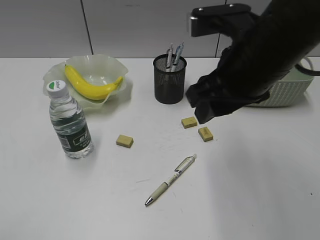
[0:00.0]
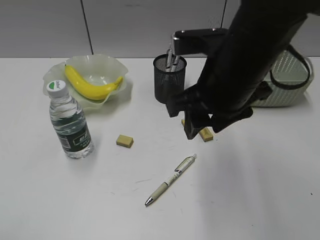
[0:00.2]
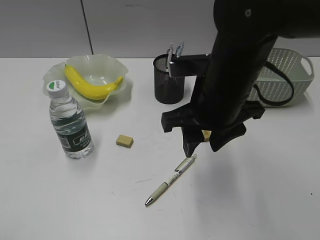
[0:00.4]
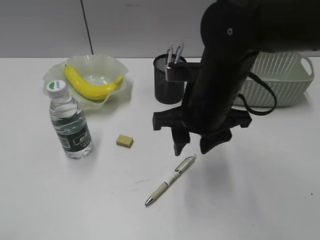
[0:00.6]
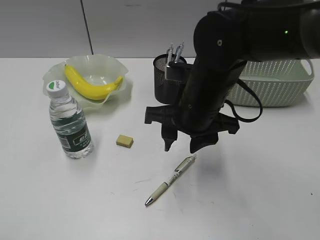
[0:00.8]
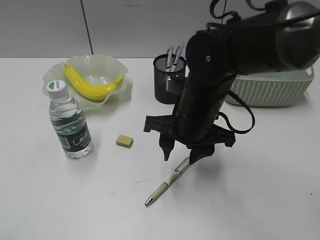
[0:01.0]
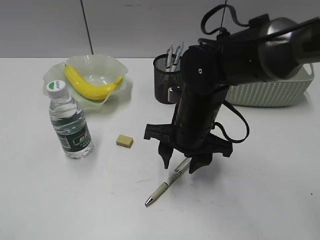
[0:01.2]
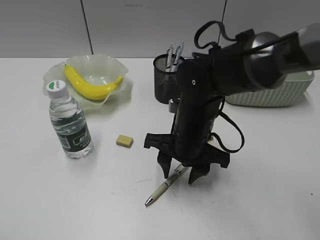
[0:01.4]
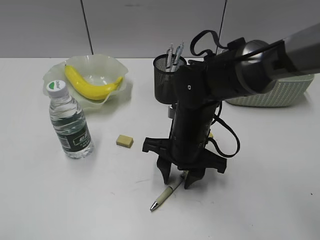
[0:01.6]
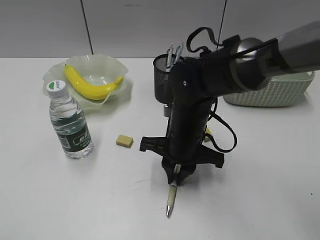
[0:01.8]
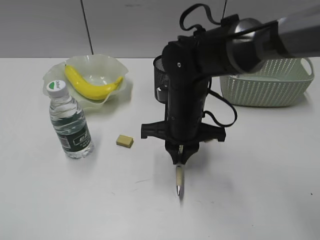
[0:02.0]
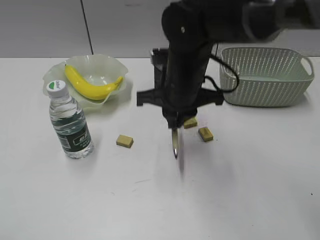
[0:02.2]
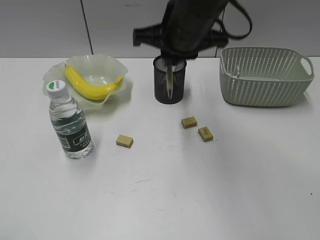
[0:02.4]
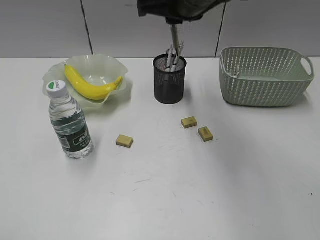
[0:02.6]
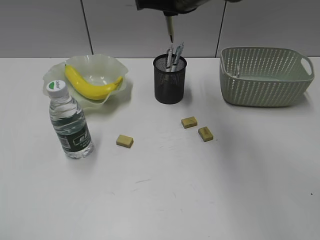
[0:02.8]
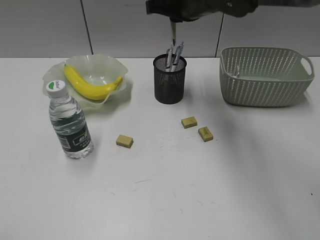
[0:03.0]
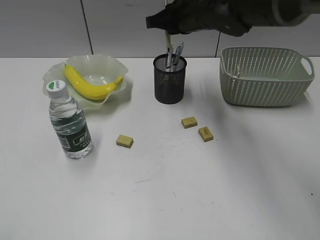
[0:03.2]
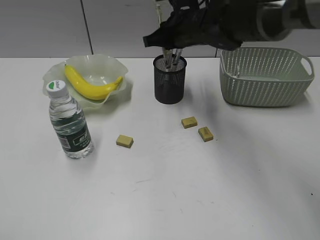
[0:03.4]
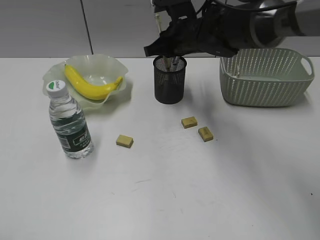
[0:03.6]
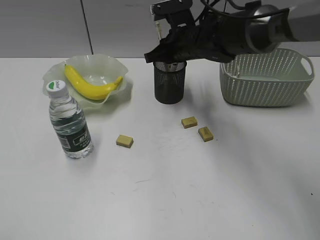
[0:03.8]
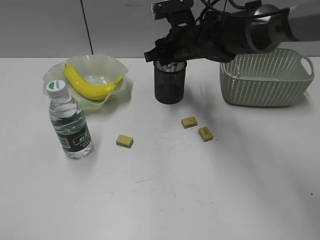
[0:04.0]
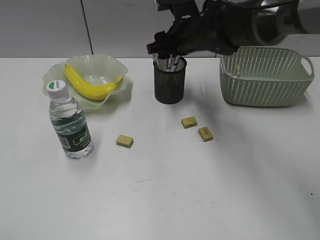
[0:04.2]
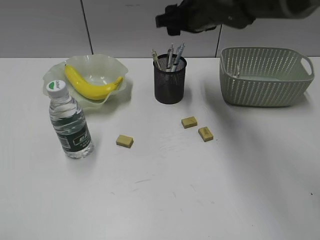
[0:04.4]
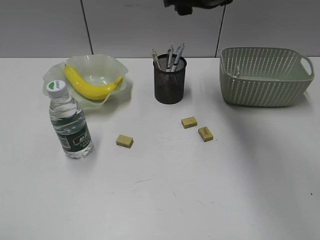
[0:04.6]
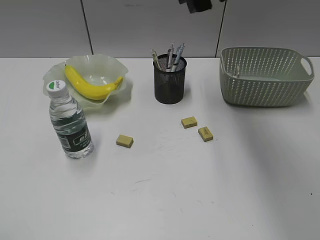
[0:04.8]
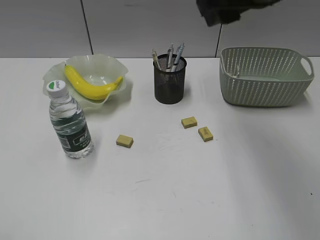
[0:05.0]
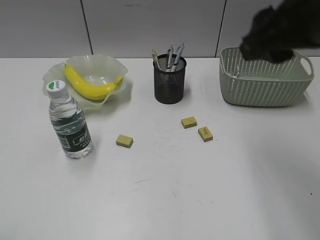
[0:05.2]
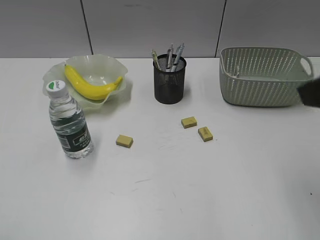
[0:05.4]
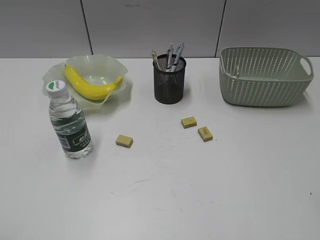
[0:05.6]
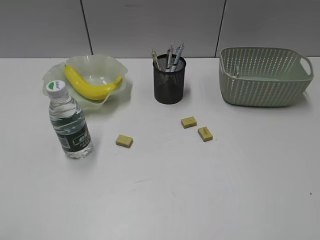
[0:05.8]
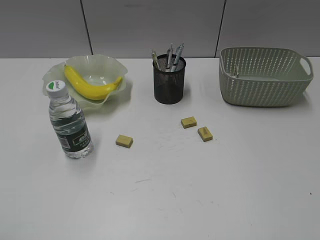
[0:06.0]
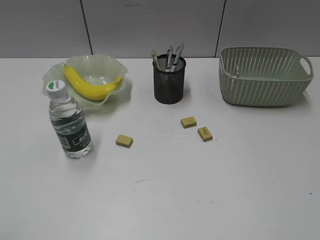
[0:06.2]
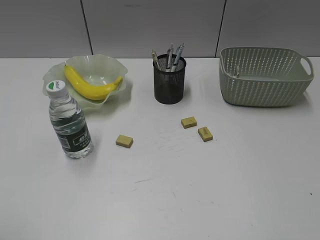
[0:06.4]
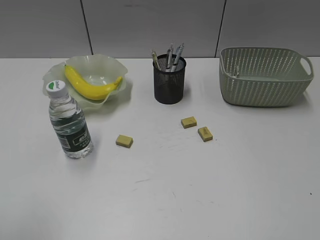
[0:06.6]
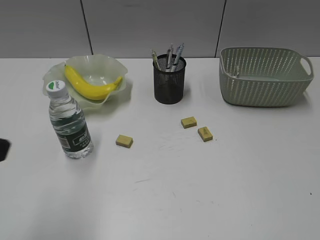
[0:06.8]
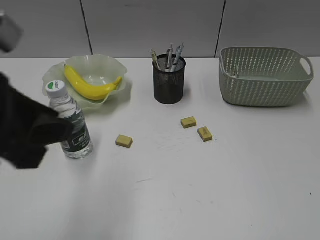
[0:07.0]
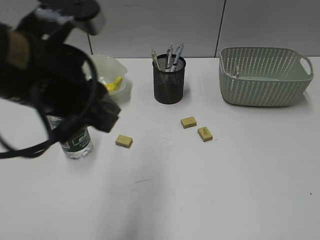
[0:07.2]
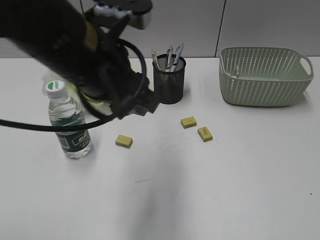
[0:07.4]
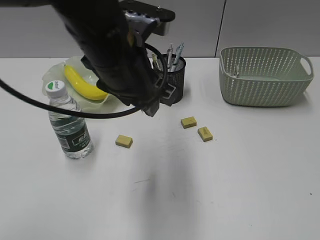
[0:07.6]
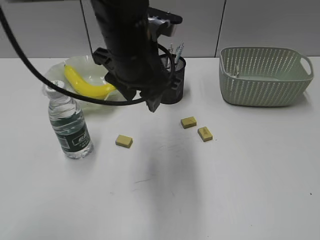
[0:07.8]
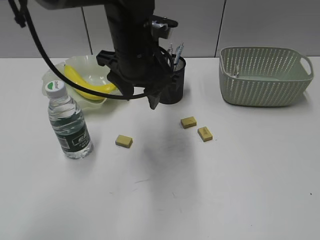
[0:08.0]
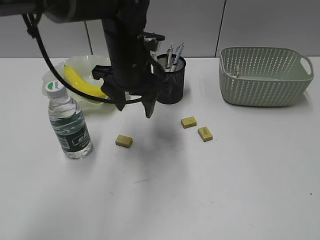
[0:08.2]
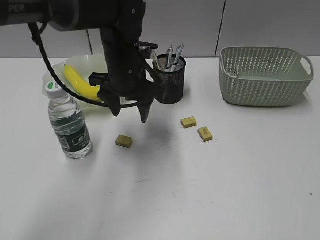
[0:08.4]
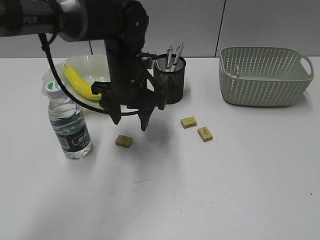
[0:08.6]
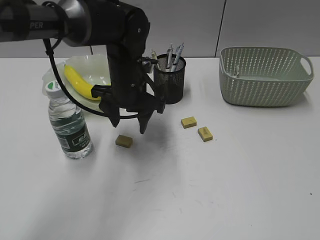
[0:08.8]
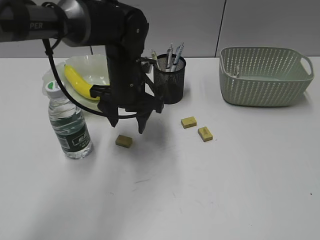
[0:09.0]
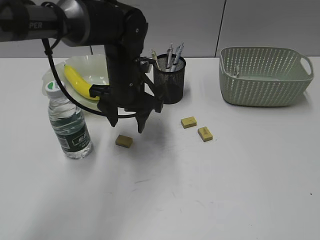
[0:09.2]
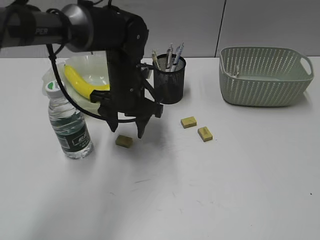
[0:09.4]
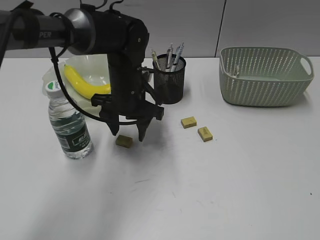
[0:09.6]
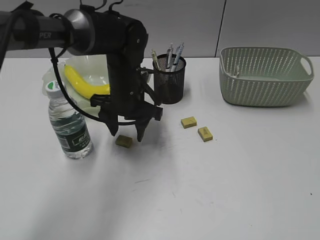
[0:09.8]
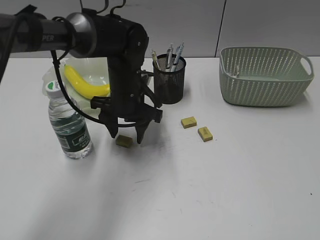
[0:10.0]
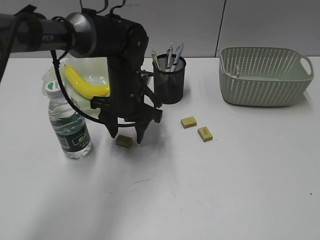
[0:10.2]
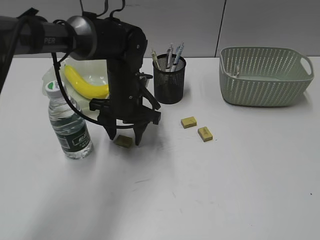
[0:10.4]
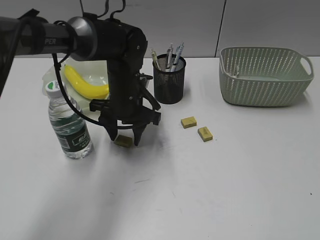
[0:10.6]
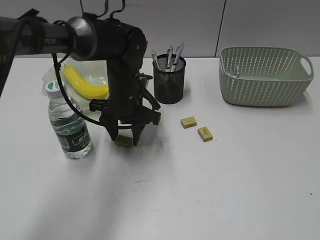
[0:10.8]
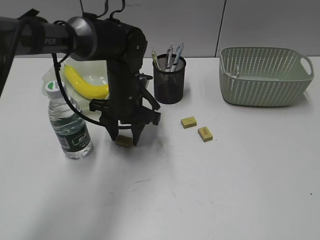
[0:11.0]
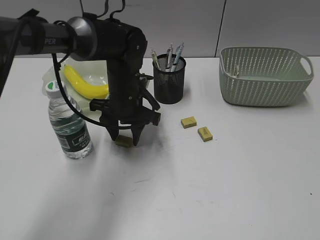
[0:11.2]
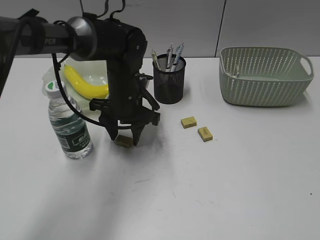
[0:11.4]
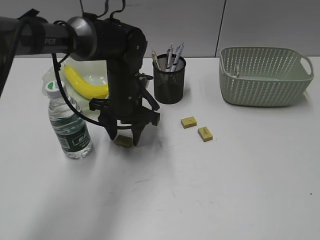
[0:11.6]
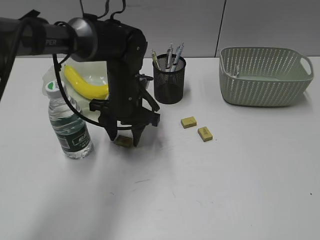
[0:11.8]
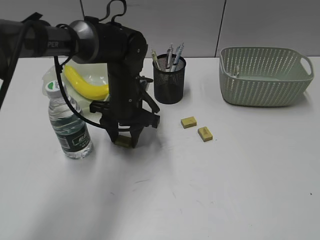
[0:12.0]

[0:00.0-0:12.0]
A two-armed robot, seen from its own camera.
Step, 0:02.0 to 0:04.2: Place the yellow pen in pen holder with right gripper.
0:00.0 to 0:01.6: The right gripper shifts some 20 cm downward.
0:01.6 to 0:03.0: The right gripper travels upward and forward by approximately 20 cm, and closes its fingers.
0:03.0 to 0:04.4: The right gripper goes downward and returns, approximately 10 cm each way, and opens up.
0:04.4 to 0:06.0: The right gripper goes approximately 50 cm backward and to the right.
0:06.0 to 0:07.6: The left gripper heads to the right and forward, covering roughly 40 cm.
0:07.6 to 0:09.0: The left gripper travels forward and downward by roughly 15 cm.
0:09.0 to 0:10.4: The grippers stay close to where they were, moving slightly.
0:10.4 to 0:12.0: Both grippers stay about where they are.

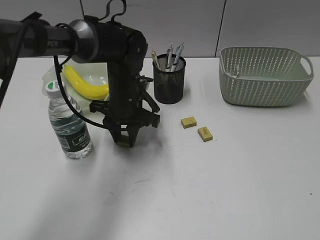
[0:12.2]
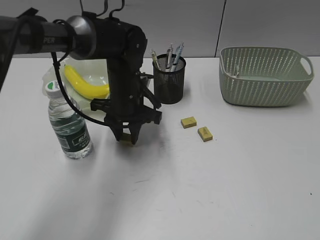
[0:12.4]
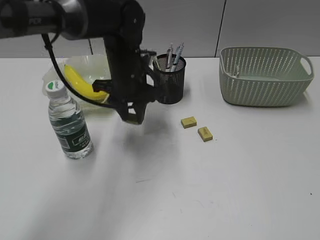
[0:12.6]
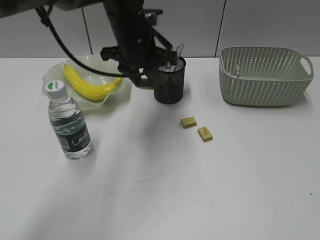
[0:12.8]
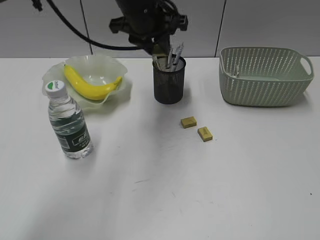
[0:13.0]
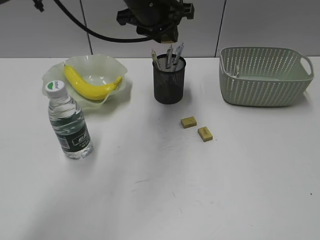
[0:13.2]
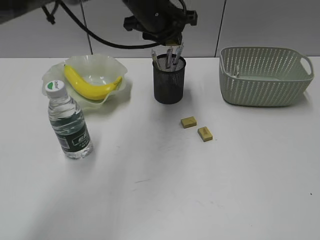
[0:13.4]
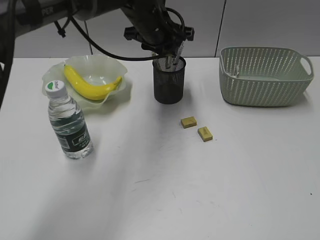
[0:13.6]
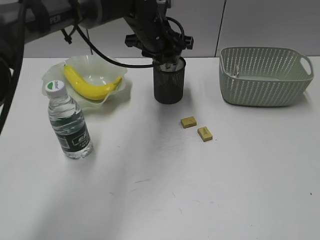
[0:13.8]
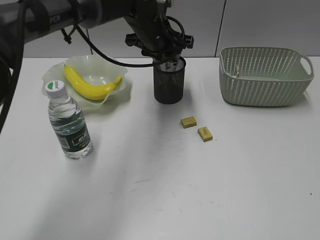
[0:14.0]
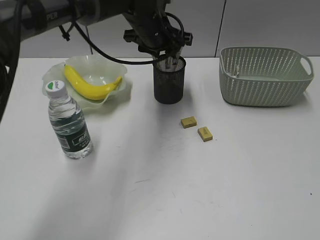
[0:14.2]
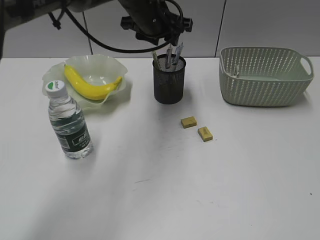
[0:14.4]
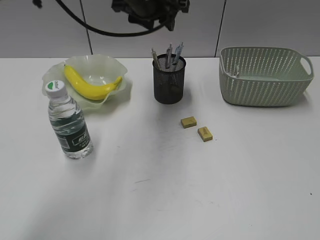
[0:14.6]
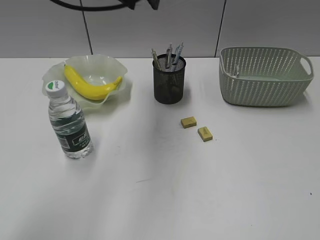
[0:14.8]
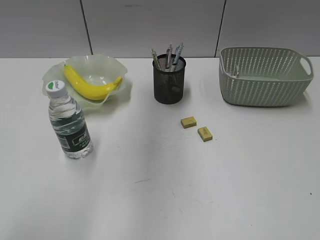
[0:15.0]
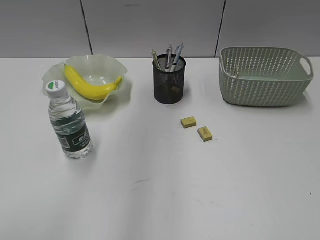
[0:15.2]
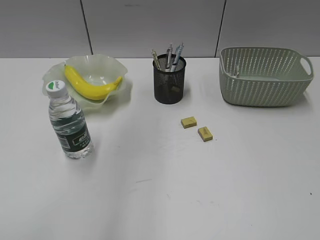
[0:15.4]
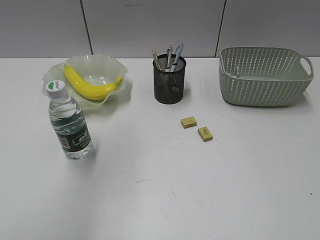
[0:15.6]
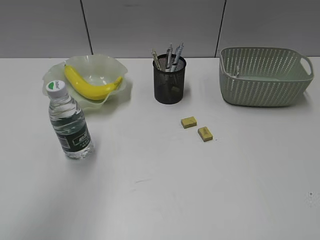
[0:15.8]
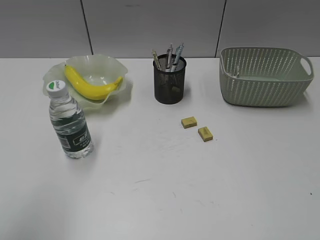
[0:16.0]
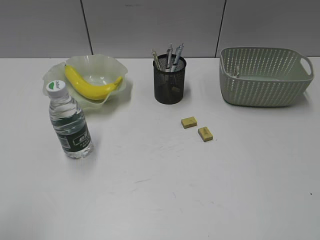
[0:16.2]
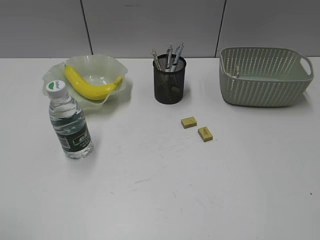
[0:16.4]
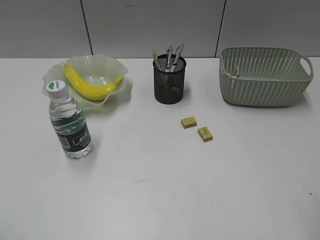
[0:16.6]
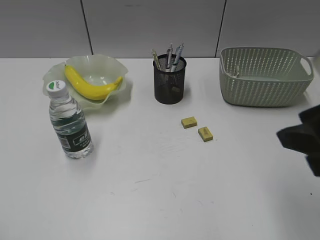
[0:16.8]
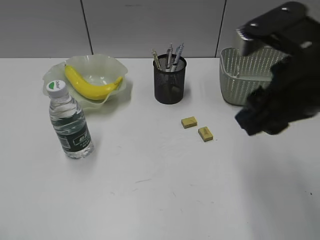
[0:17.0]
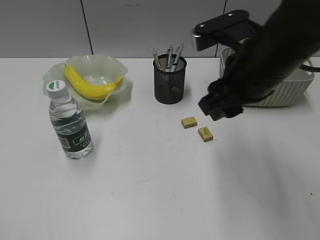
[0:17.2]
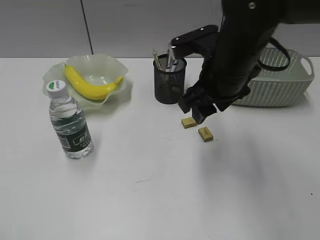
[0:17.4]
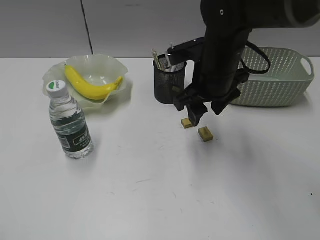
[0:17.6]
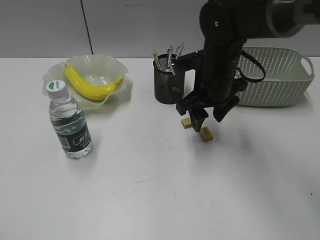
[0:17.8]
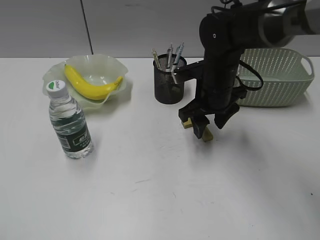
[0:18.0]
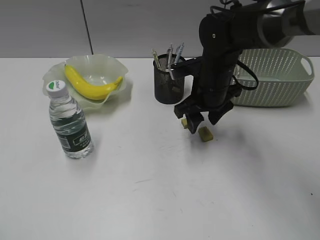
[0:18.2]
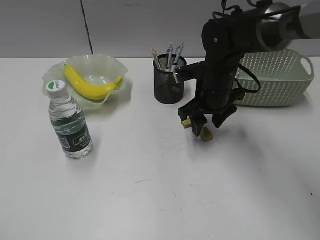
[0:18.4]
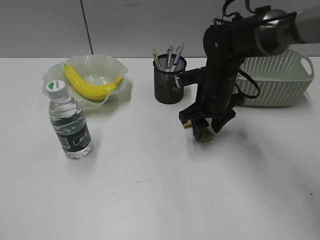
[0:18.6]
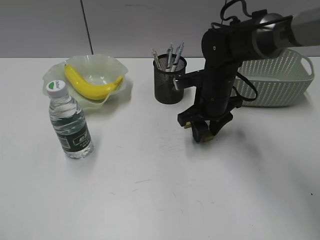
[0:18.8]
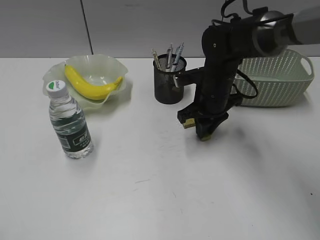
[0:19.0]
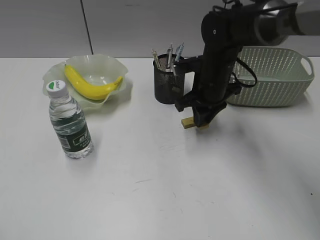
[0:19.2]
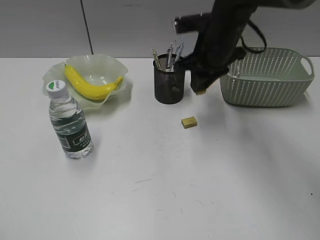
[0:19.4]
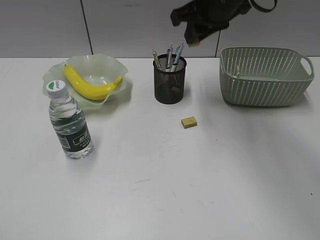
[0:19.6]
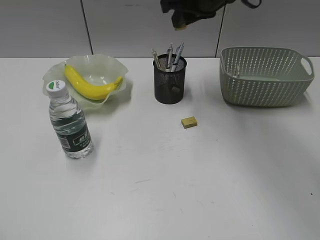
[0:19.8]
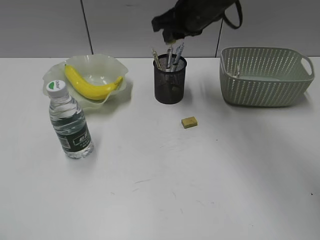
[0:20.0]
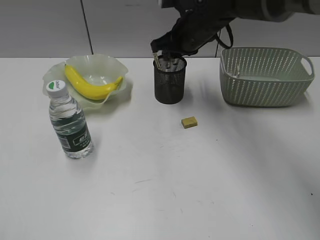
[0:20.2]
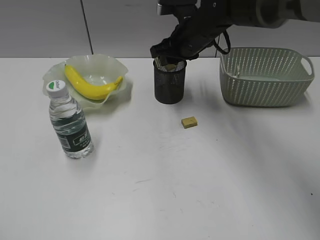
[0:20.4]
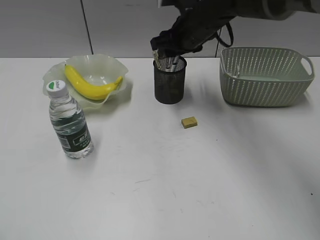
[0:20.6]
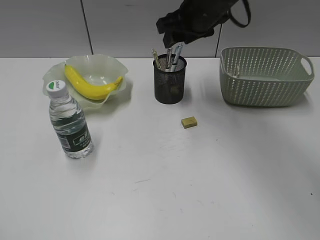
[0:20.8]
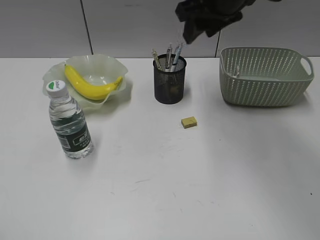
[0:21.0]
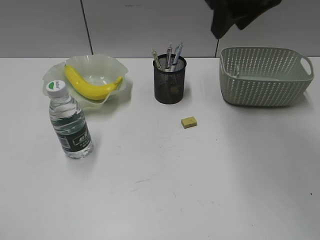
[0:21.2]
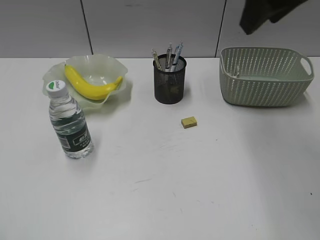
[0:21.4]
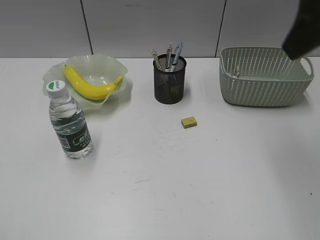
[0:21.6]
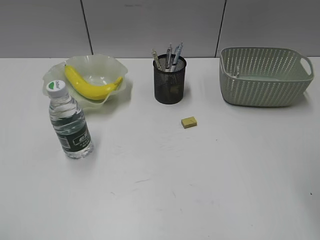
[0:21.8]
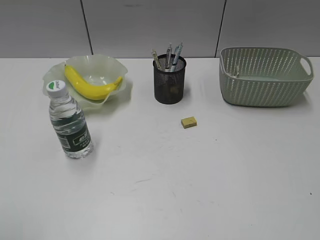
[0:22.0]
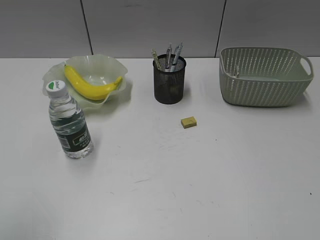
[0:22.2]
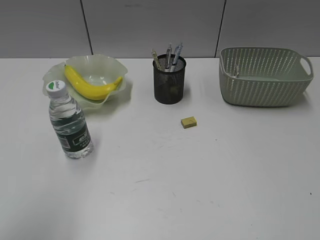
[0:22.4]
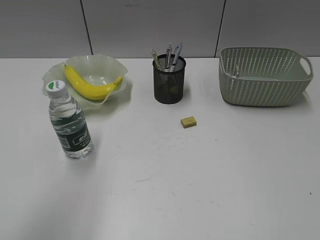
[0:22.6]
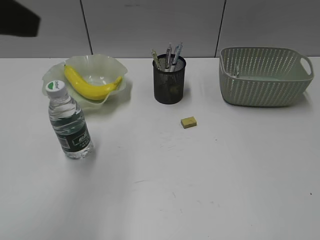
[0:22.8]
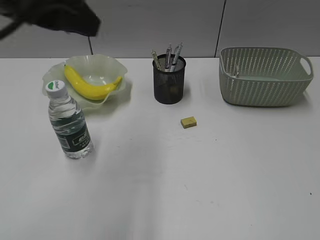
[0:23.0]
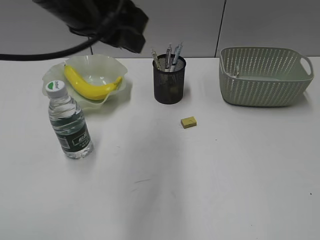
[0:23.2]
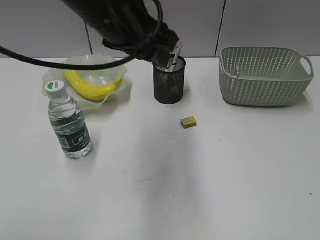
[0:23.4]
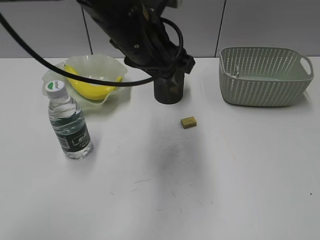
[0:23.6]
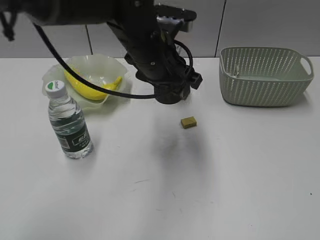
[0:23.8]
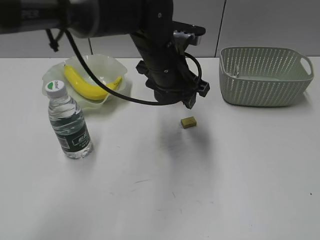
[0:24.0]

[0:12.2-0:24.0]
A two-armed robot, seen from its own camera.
Step, 0:12.4 to 0:14.2: Place the eraser in pen holder with left gripper.
Step, 0:14.4 to 0:19.0: Grasp the eraser with right gripper.
Step, 0:19.2 to 0:20.6: Place the eraser in pen holder with right gripper.
0:12.2 to 0:13.6: The left gripper goes approximately 15 cm upward and forward.
0:13.6 to 0:15.2: The left gripper shifts approximately 30 cm upward, backward and to the left.
0:15.2 to 0:16.6: The left gripper goes about 40 cm backward, to the left and downward. Meanwhile the right gripper travels forward and to the left by approximately 10 cm.
0:16.6 to 0:18.2: The right gripper heads forward, to the left and downward, covering some 35 cm.
0:18.2 to 0:19.6: The right gripper heads upward, covering about 15 cm, and closes its fingers.
0:19.6 to 0:21.0: The right gripper reaches approximately 10 cm downward, then returns, and opens up.
0:21.0 to 0:22.6: The left gripper is displaced forward, to the right and upward by some 15 cm, while the right gripper moves backward and to the right, about 50 cm.
0:22.6 to 0:24.0: The left gripper moves to the right, forward and downward, approximately 40 cm.
